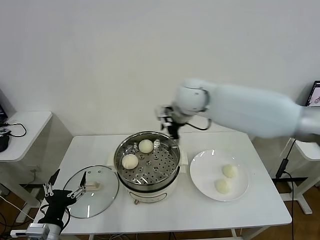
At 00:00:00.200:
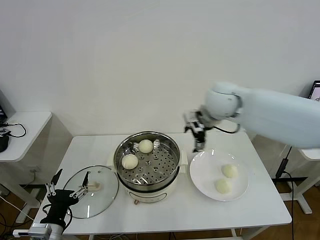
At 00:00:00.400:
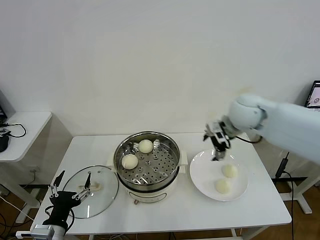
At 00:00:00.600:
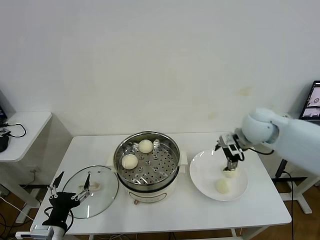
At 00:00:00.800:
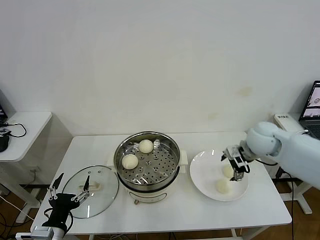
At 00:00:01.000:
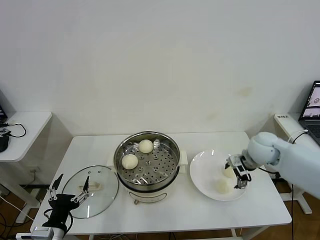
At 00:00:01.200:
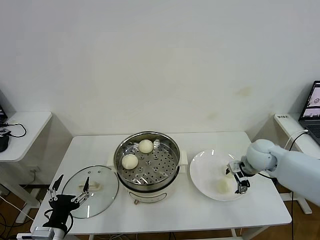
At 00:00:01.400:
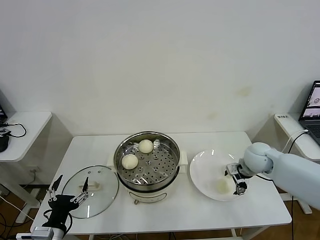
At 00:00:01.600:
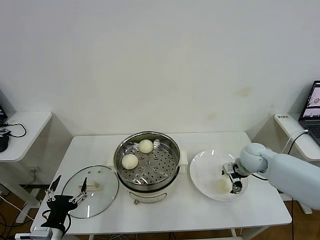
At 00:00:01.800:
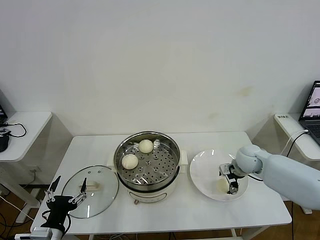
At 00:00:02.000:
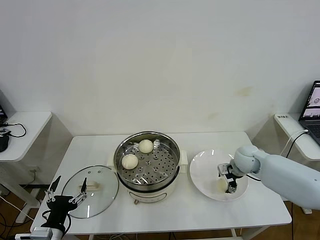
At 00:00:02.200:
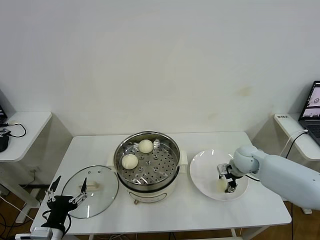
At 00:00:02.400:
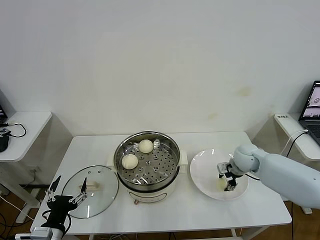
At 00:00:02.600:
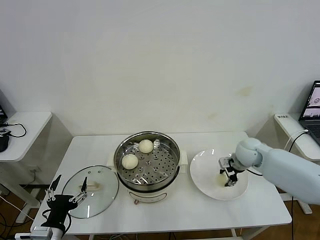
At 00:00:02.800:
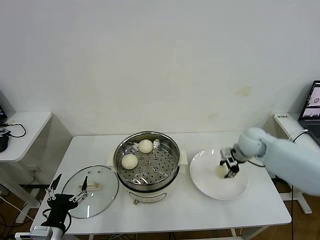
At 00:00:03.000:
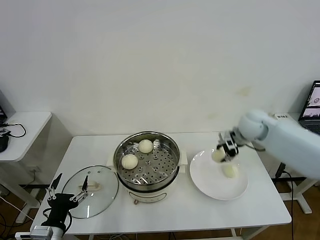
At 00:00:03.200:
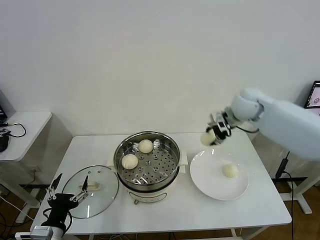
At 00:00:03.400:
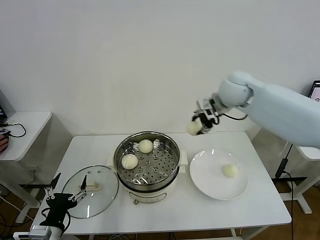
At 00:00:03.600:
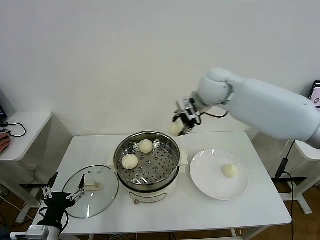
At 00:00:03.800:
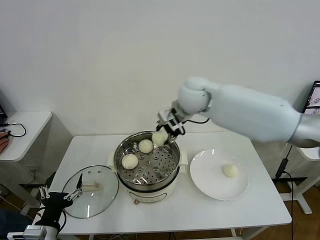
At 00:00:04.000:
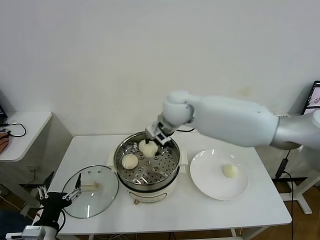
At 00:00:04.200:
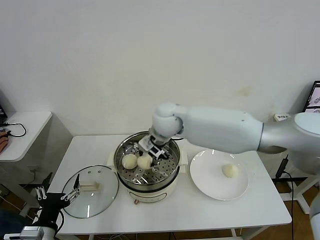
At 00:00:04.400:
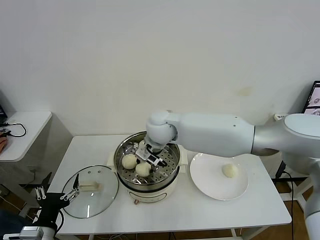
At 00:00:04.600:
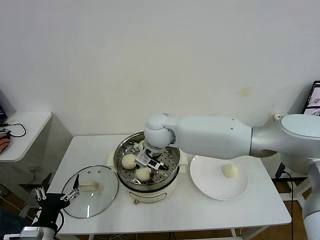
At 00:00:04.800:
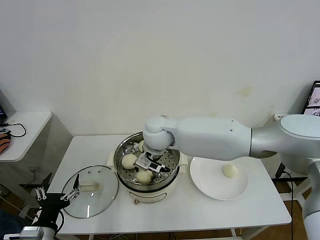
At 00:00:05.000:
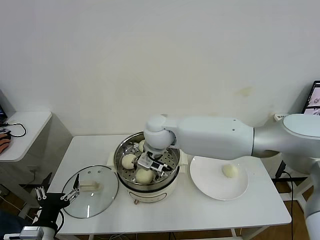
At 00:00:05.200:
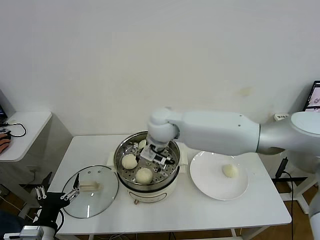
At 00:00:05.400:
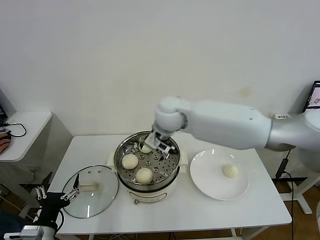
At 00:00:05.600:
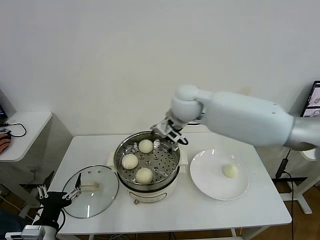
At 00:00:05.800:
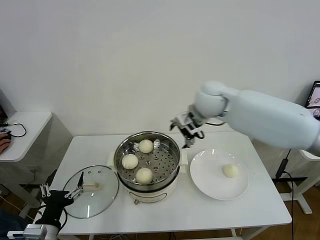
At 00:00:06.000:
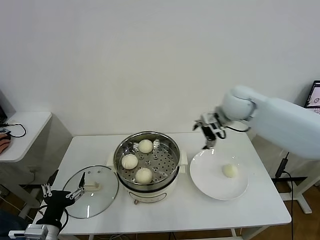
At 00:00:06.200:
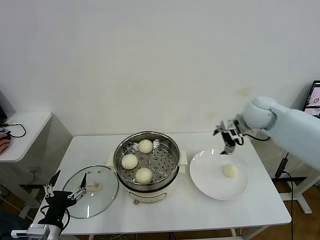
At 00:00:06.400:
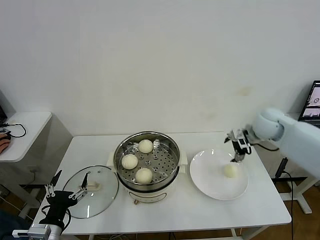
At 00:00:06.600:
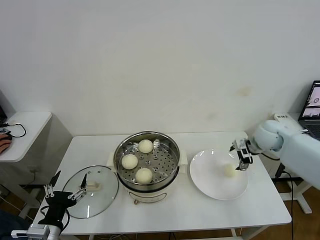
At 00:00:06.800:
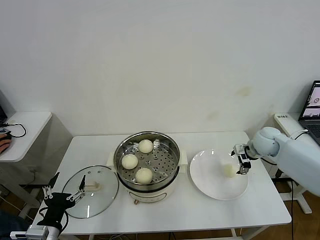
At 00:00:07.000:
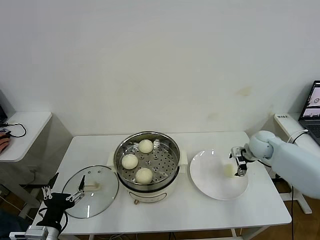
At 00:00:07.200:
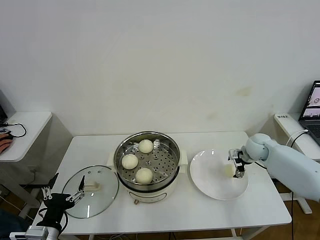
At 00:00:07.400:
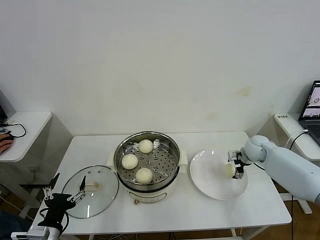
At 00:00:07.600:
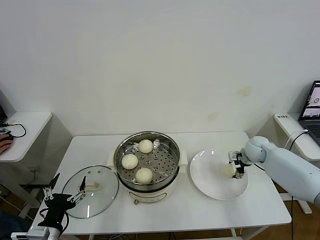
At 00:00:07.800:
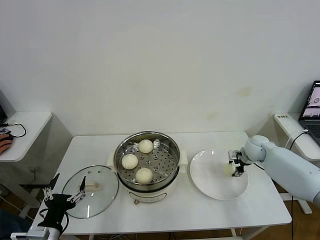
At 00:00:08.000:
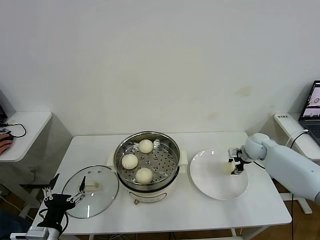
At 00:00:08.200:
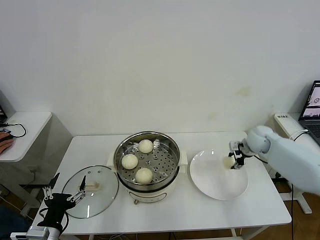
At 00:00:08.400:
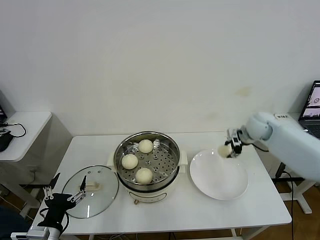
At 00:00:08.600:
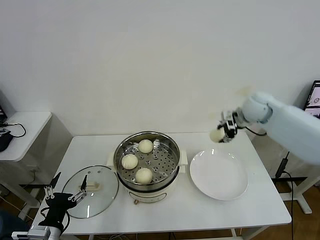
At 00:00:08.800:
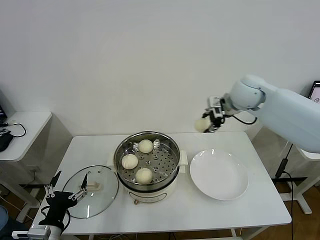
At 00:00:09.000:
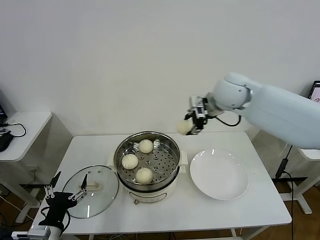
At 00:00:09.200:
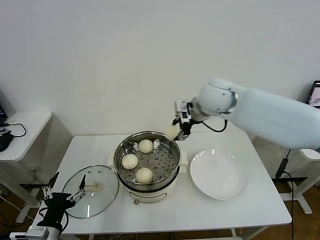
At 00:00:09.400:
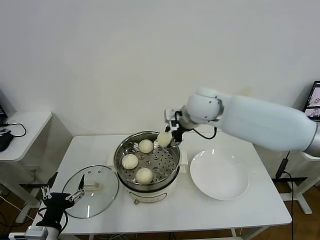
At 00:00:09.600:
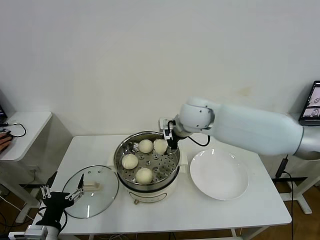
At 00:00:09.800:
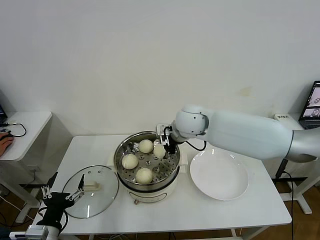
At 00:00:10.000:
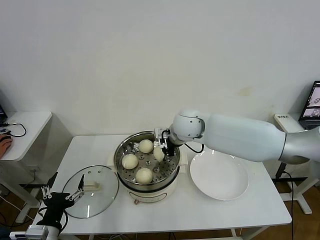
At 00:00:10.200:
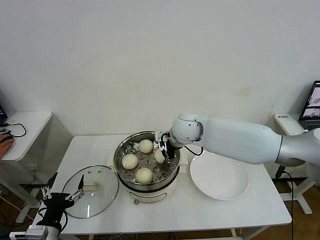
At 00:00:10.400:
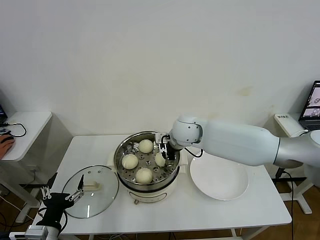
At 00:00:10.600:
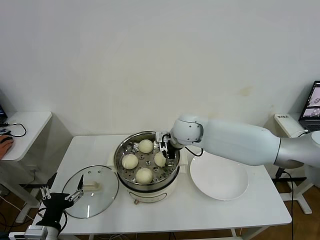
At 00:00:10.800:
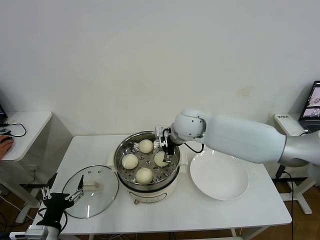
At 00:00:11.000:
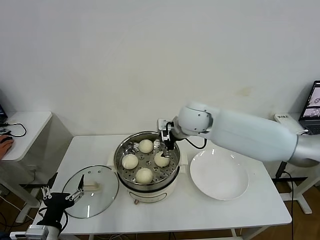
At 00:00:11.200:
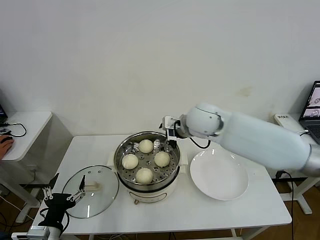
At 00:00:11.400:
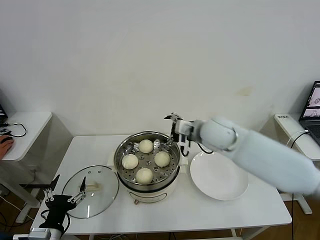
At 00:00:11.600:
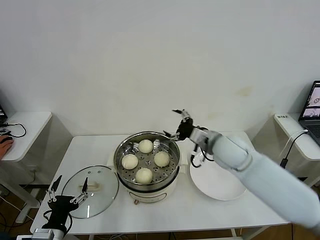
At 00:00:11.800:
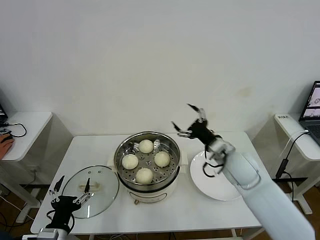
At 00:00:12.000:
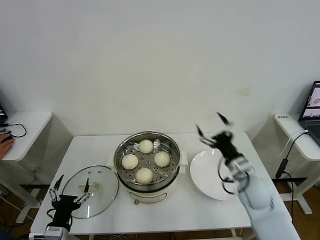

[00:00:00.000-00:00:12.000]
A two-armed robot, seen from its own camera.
Task of the whole recording: take steamed baozi put them in steamer then cover it.
Step, 00:00:00.000 to 00:00:02.200: Grasp the baozi in the plate with right gripper.
Step, 00:00:02.600 to 00:00:04.800: Place the baozi on the steamer with right gripper.
Step, 00:00:05.200 to 00:00:07.800: Grasp the baozi in the plate with right gripper.
Step, 00:00:08.000 to 00:00:10.600: Place the baozi on the steamer with right gripper.
00:00:00.000 to 00:00:01.600: The right gripper moves to the right and downward, roughly 30 cm.
00:00:01.600 to 00:00:03.000: The right gripper shifts some 10 cm upward and forward, and closes.
00:00:03.000 to 00:00:04.400: The right gripper moves to the left, roughly 30 cm.
00:00:04.400 to 00:00:06.000: The right gripper shifts some 20 cm to the right, and opens up.
00:00:06.000 to 00:00:07.600: The right gripper moves downward and to the right, approximately 25 cm.
00:00:07.600 to 00:00:09.000: The right gripper is displaced upward and to the left by approximately 30 cm, and closes its fingers.
00:00:09.000 to 00:00:10.400: The right gripper is displaced downward and to the left by some 15 cm, and opens its fingers.
00:00:10.400 to 00:00:12.000: The right gripper goes some 25 cm to the right, backward and downward, and opens up.

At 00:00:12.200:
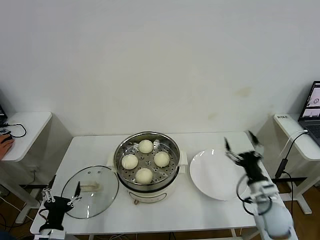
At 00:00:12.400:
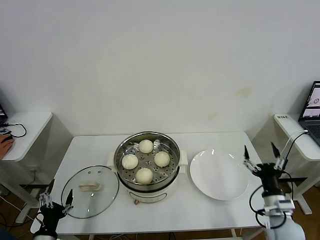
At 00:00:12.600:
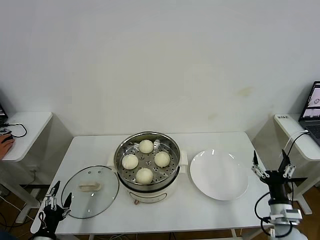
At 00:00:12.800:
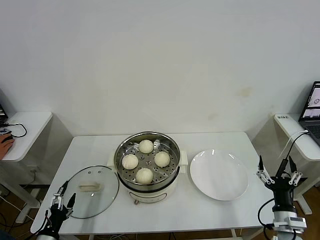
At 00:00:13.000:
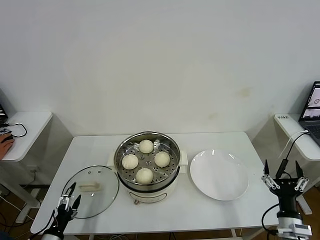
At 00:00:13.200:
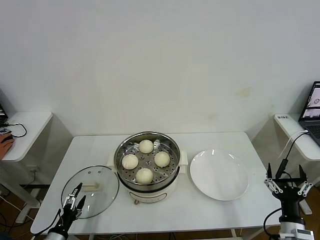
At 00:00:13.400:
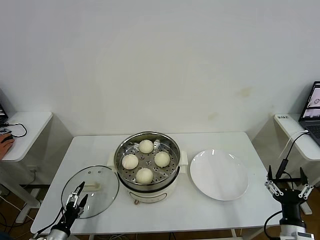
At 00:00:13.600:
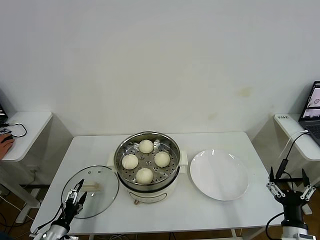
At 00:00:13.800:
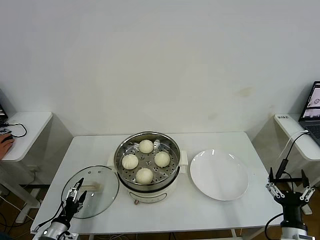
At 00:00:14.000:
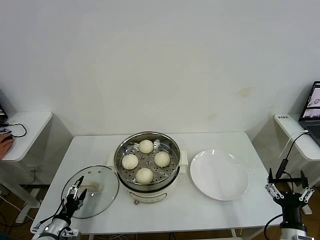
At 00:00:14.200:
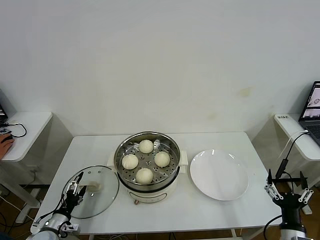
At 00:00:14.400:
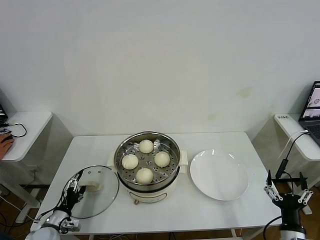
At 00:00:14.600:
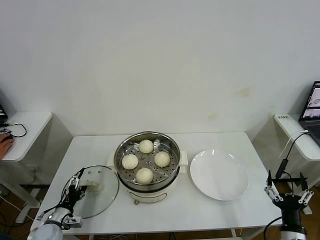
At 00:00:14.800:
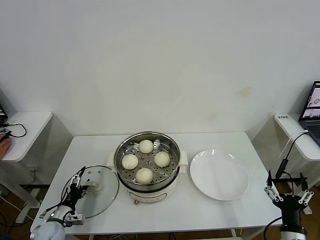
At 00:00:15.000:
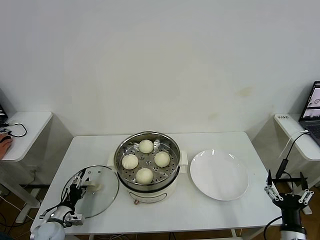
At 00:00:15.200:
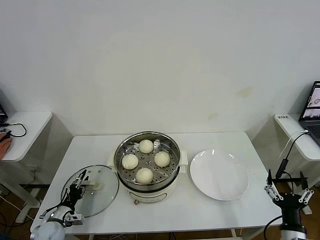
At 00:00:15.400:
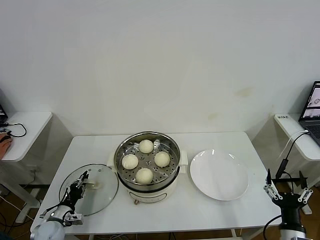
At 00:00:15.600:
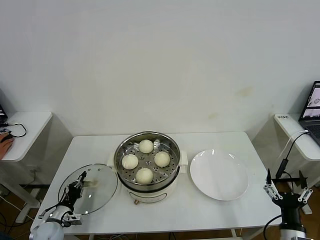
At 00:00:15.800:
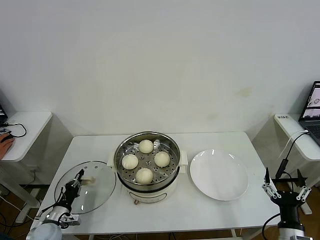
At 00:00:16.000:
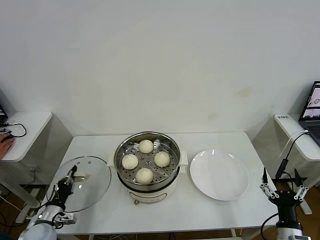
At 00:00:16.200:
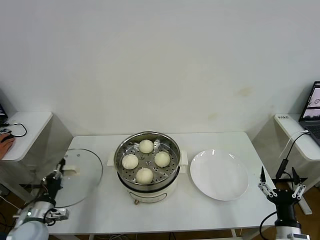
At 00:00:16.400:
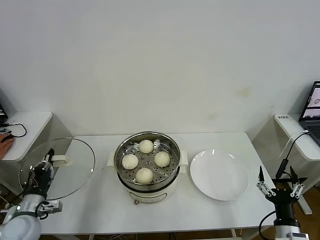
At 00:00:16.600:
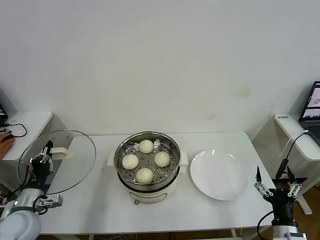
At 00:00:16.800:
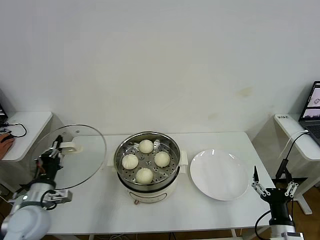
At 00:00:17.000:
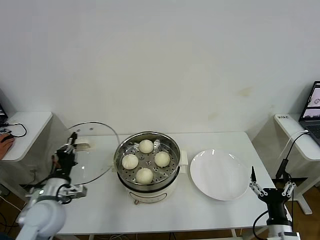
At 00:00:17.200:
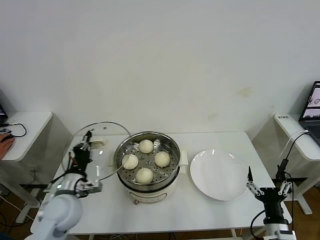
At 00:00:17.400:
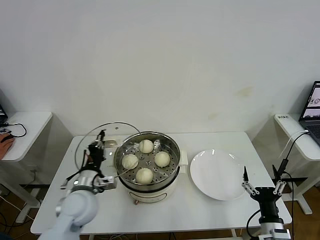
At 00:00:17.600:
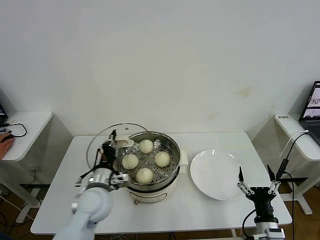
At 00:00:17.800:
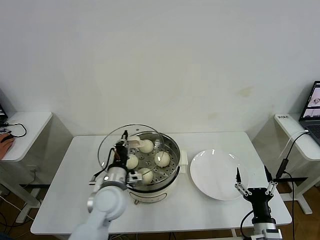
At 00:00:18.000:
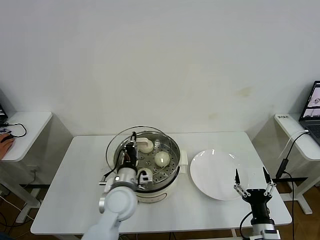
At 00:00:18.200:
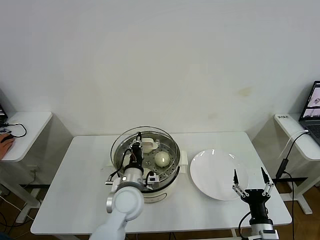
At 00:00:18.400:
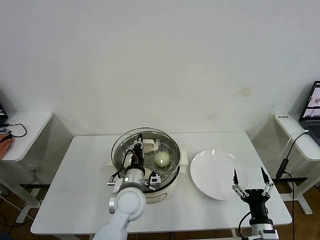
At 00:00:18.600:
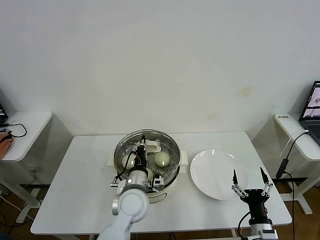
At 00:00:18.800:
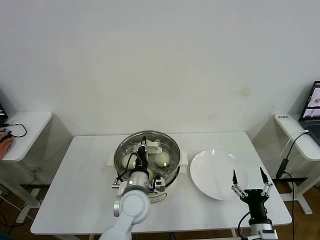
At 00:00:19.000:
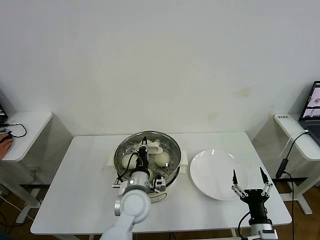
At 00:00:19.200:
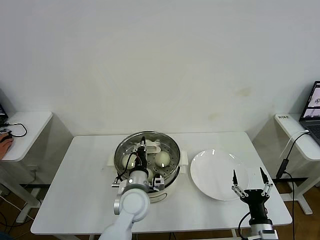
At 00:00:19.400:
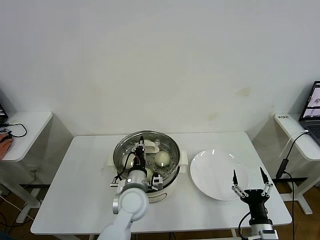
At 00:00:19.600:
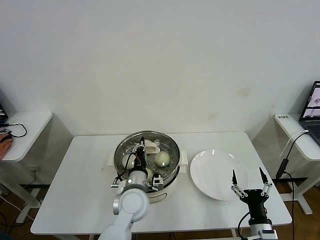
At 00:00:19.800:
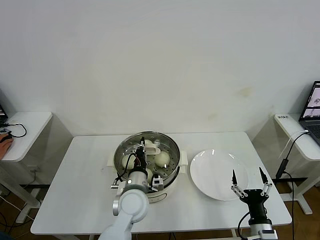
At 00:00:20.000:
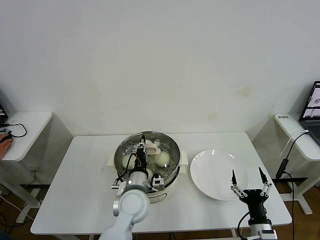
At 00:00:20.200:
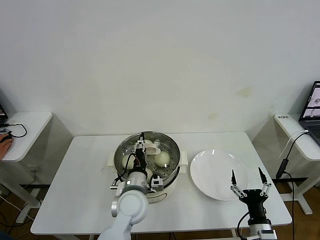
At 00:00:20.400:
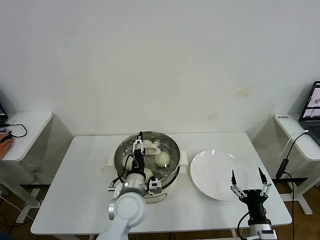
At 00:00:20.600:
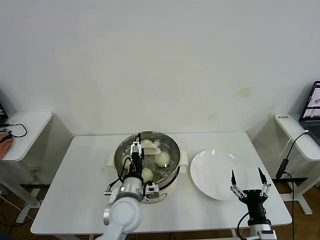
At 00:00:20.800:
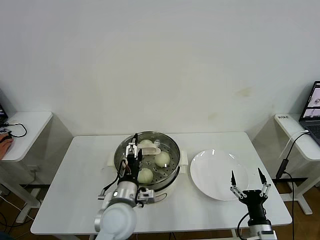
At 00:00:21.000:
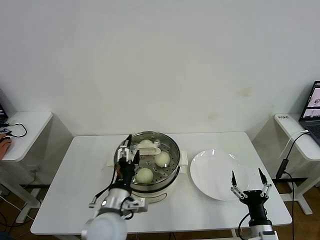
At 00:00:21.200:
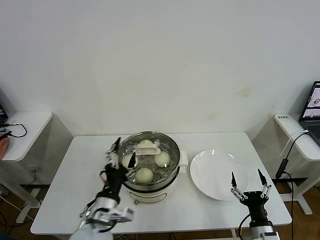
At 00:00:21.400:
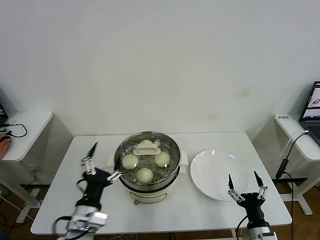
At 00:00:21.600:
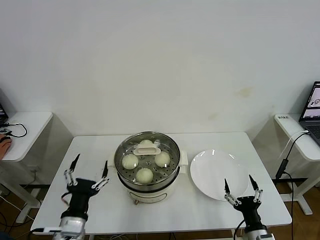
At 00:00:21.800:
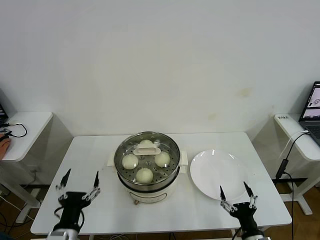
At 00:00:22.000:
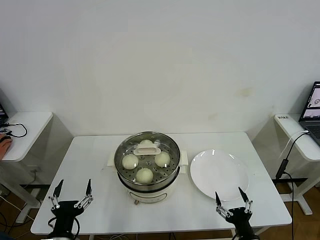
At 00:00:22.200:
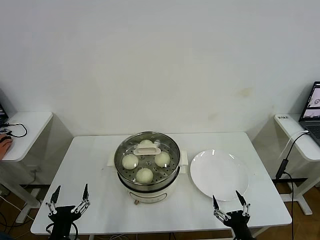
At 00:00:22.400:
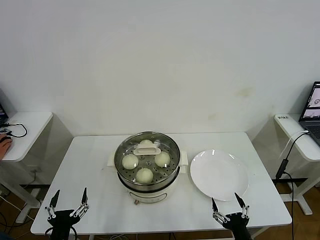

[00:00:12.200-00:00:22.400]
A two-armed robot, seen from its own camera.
Task of the whole recording: take steamed baozi put them in steamer then cover it.
Step, 00:00:12.200 to 00:00:15.600: Grasp the pot lid with left gripper.
Step, 00:00:15.800 to 00:00:20.400: Place the pot lid on the steamer with left gripper.
00:00:12.200 to 00:00:13.600: The right gripper shifts some 15 cm backward. Meanwhile the left gripper goes roughly 10 cm downward and to the left.
00:00:13.600 to 00:00:15.200: The left gripper moves forward, some 10 cm, and closes.
00:00:15.200 to 00:00:16.600: The left gripper travels upward by roughly 15 cm, and closes its fingers.
00:00:16.600 to 00:00:18.000: The left gripper is displaced to the right by approximately 25 cm. The right gripper ends up some 5 cm from where it was.
00:00:18.000 to 00:00:19.400: The left gripper ends up about 5 cm from where it was.
00:00:19.400 to 00:00:21.000: The left gripper is displaced backward by roughly 5 cm, and opens.
00:00:21.000 to 00:00:22.400: The right gripper shifts some 5 cm backward. Meanwhile the left gripper heads to the left, backward and downward, covering about 20 cm.
